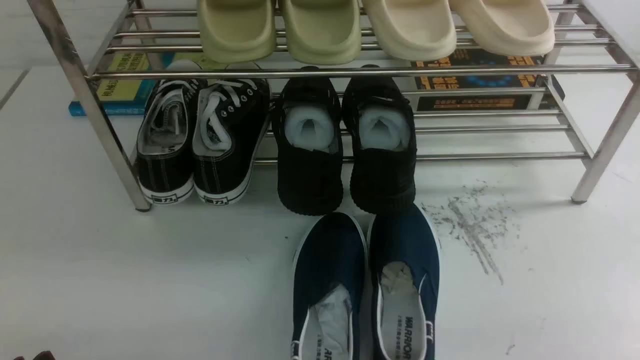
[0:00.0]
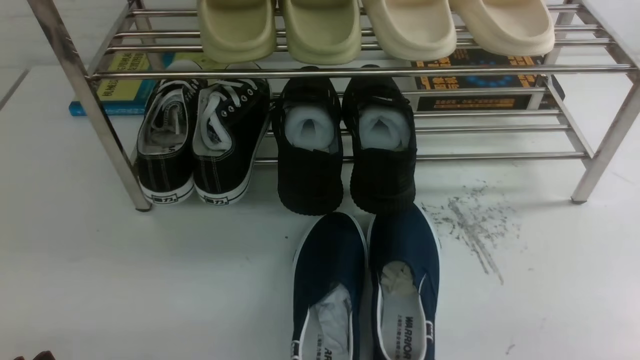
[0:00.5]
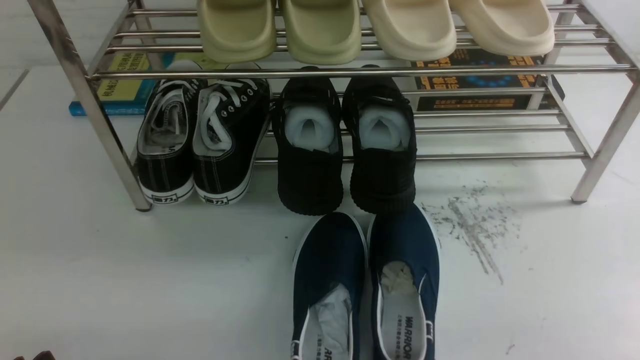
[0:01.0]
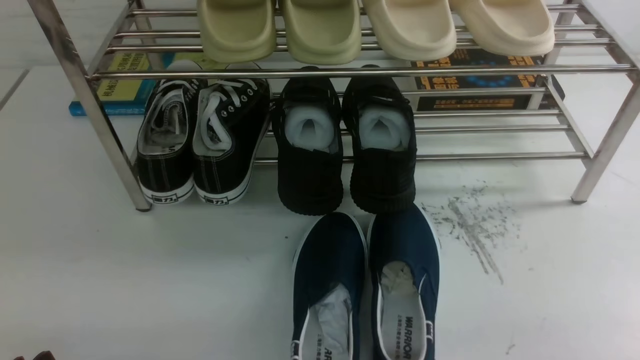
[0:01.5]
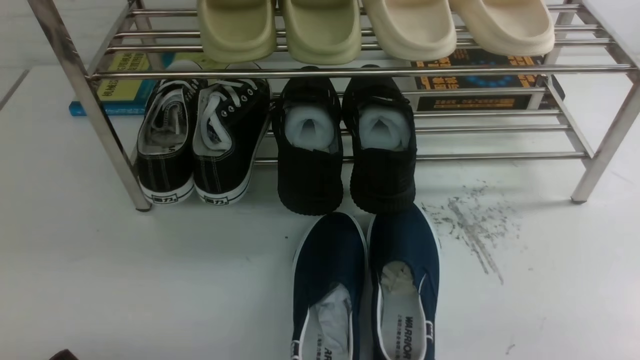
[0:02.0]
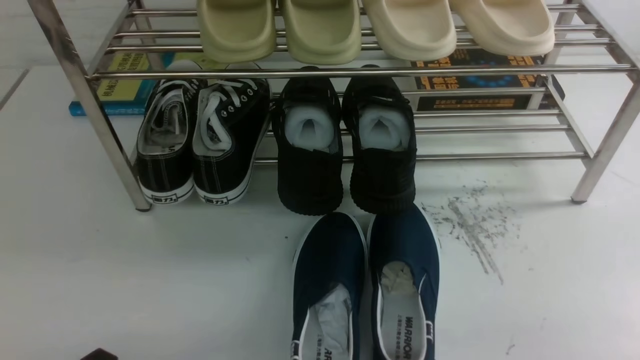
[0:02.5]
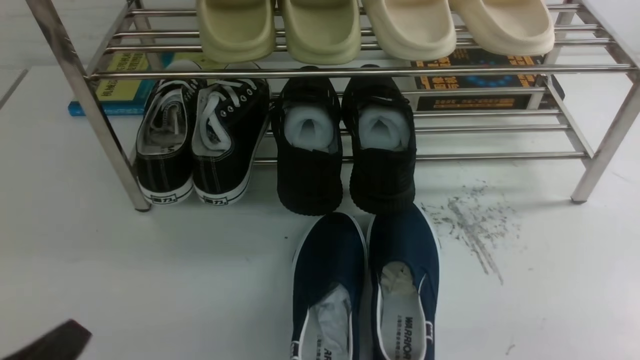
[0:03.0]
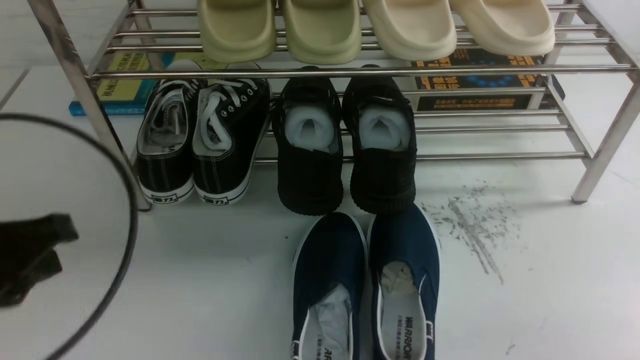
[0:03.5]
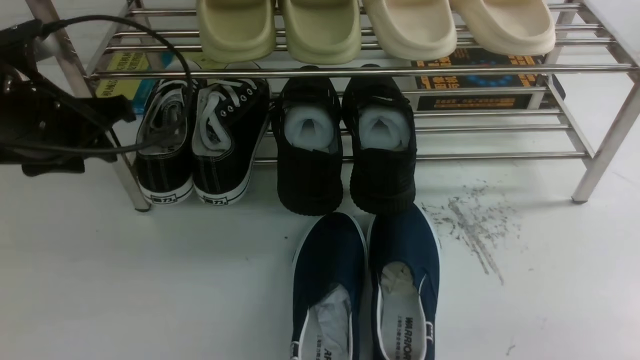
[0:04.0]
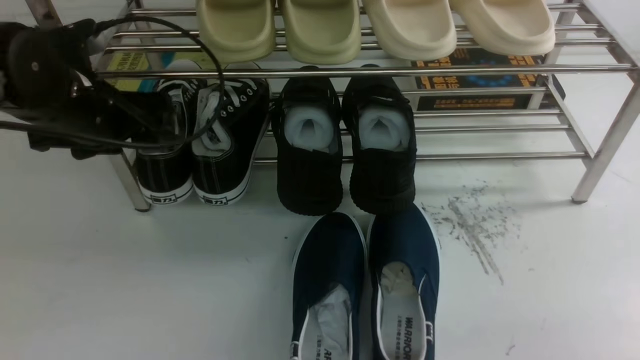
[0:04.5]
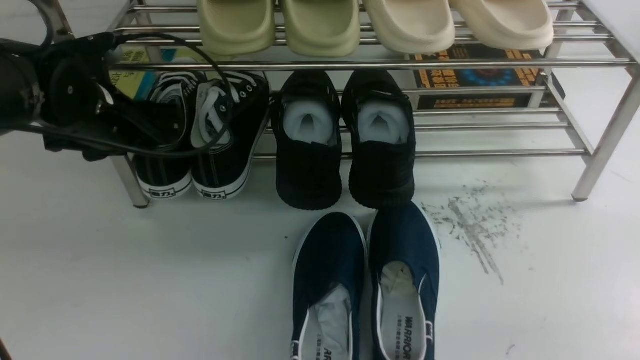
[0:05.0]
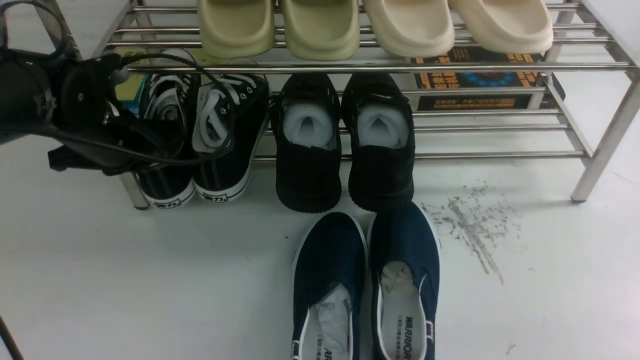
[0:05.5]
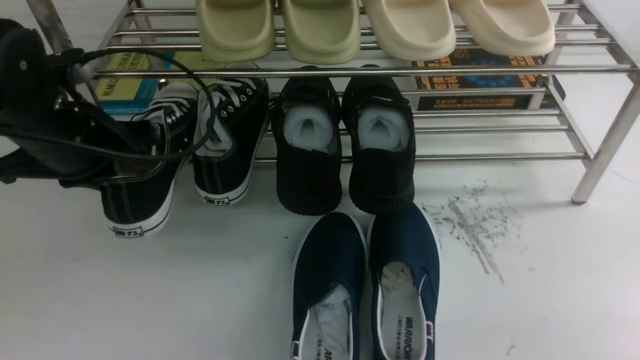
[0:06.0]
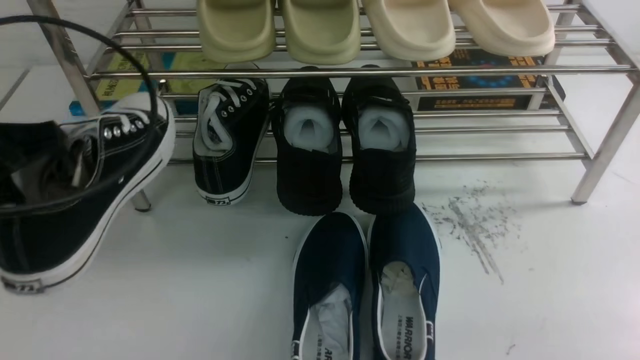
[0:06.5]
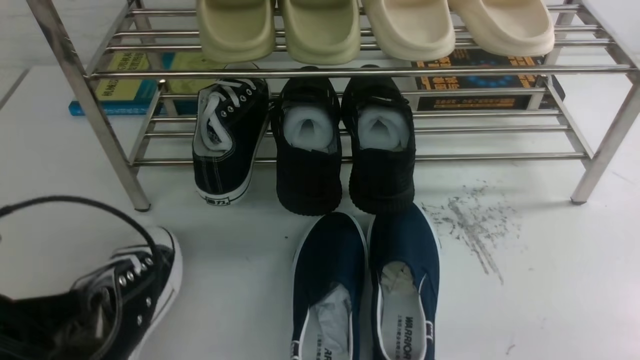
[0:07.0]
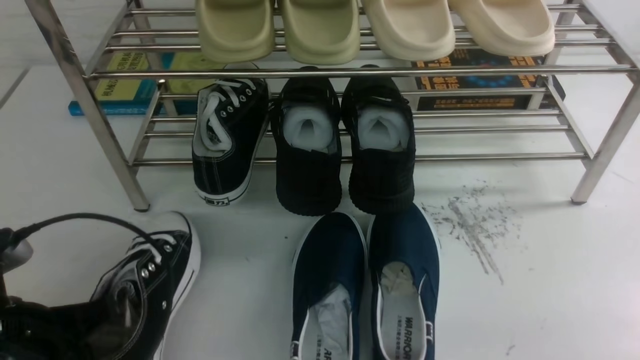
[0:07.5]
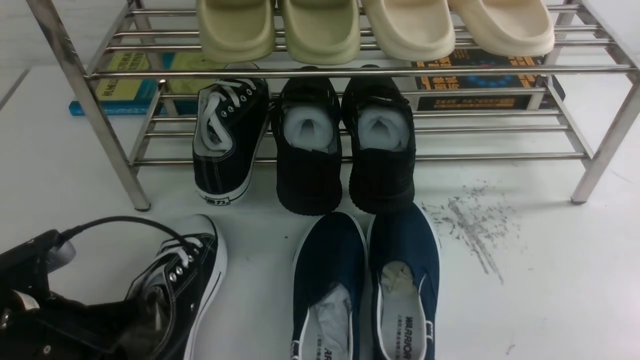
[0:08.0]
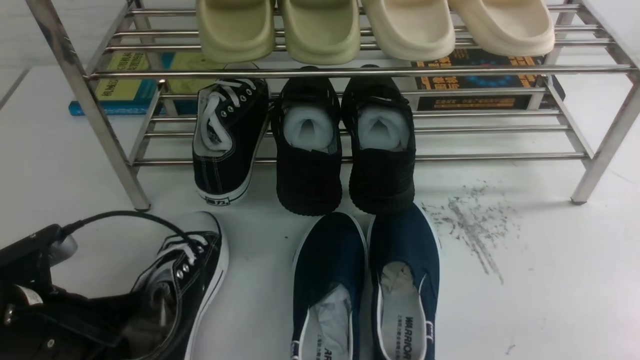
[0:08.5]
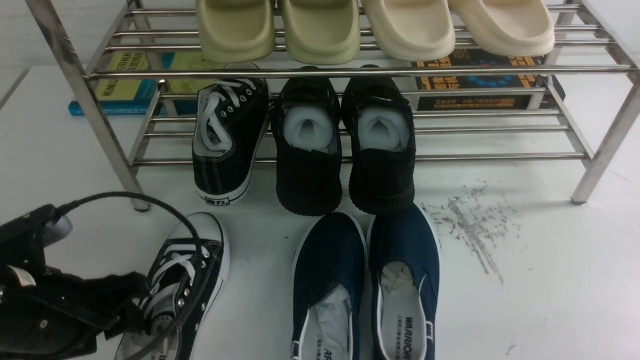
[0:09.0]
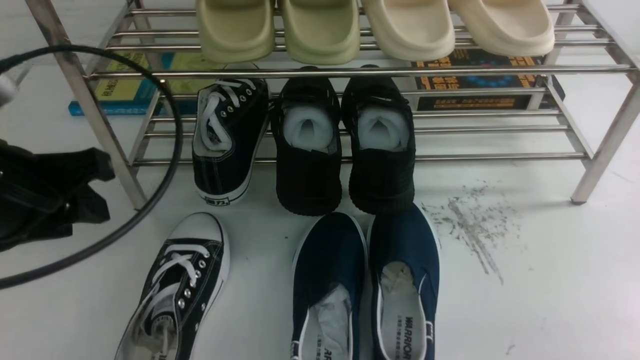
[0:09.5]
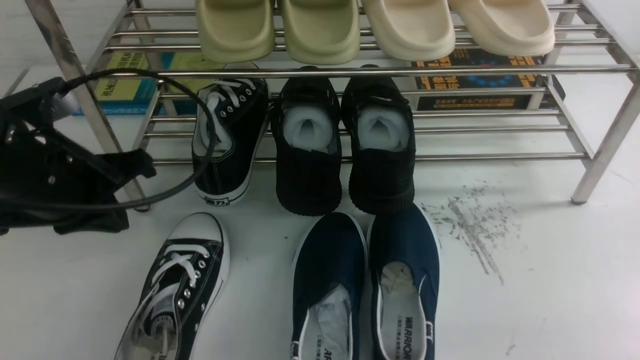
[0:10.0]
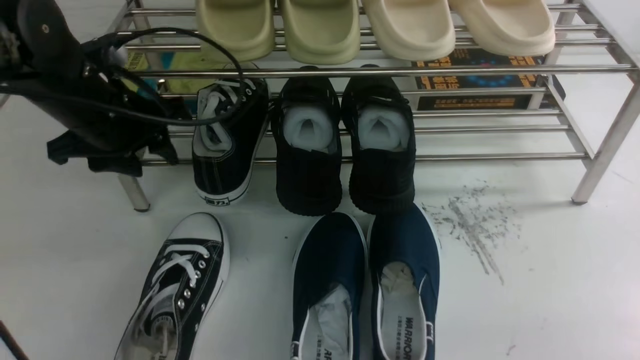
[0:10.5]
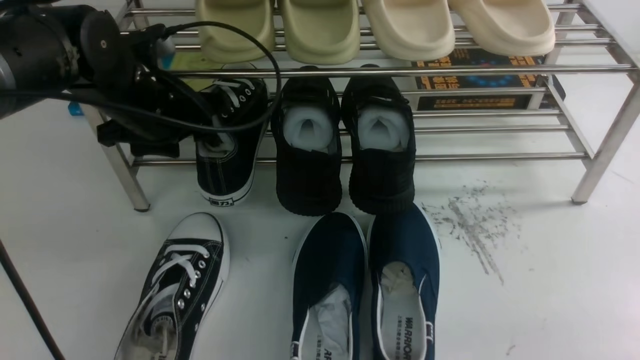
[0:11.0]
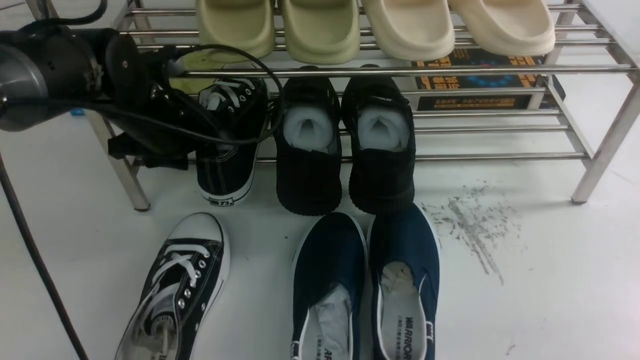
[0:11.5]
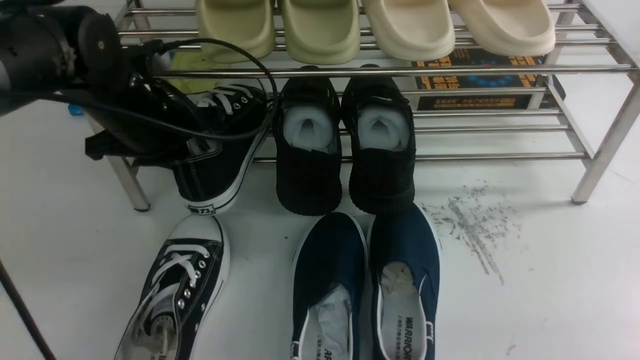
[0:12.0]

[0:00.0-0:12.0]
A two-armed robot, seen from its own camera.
Step, 0:00.0 to 0:05.5: use the left arm to clamp a shoe on the left side of the shoe rack.
Step, 0:06.0 to 0:09.0: Use your left arm to remove the clamped shoe from the shoe rack and put it down.
0:02.0 to 0:04.0: The left gripper goes approximately 30 cm forward and upward, and closes and opens again.
0:04.0 to 0:06.0: The left gripper closes.
0:06.0 to 0:08.0: The left gripper goes approximately 15 cm backward and downward.
0:08.0 to 0:10.0: The left gripper heads forward and upward, covering about 15 cm, and opens, then closes again.
0:10.0 to 0:12.0: The left gripper goes about 10 cm forward, and opens and closes again.

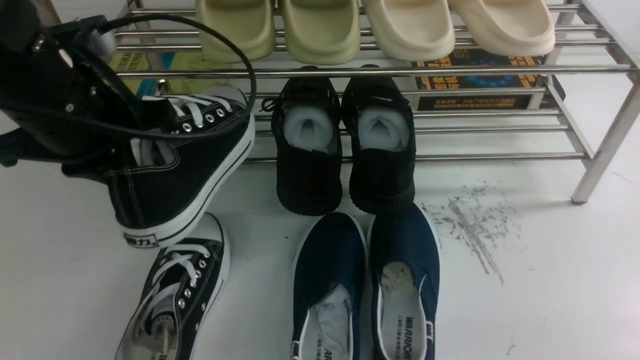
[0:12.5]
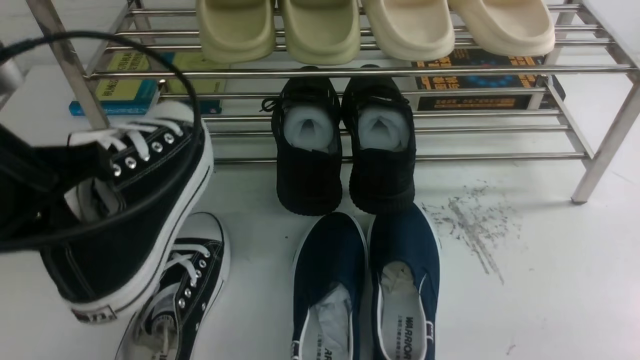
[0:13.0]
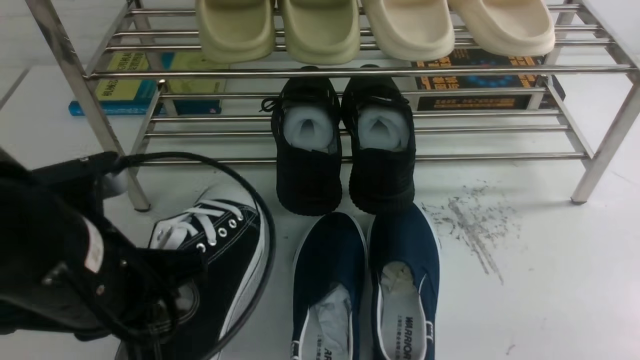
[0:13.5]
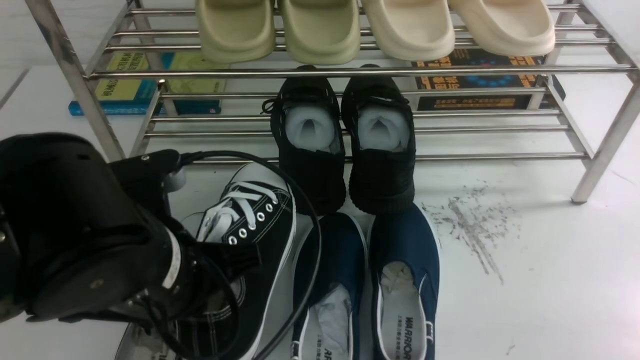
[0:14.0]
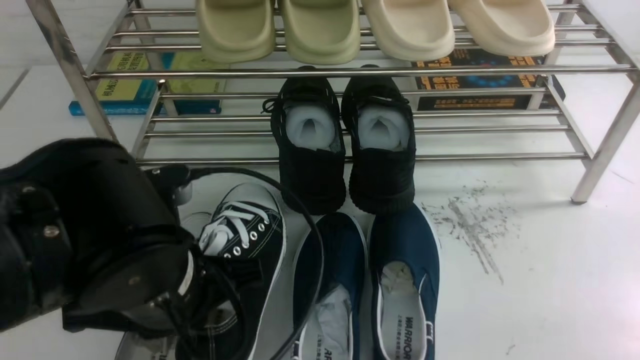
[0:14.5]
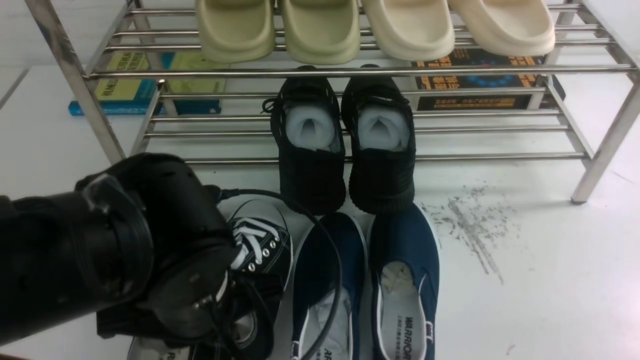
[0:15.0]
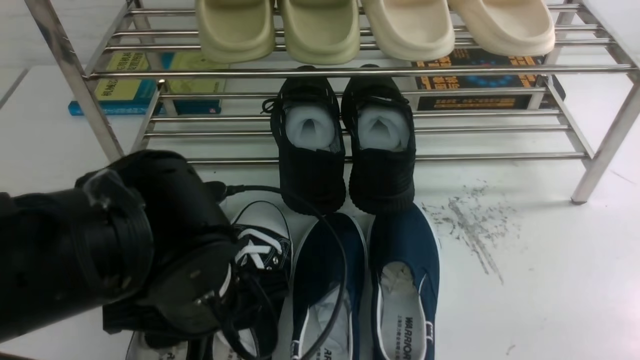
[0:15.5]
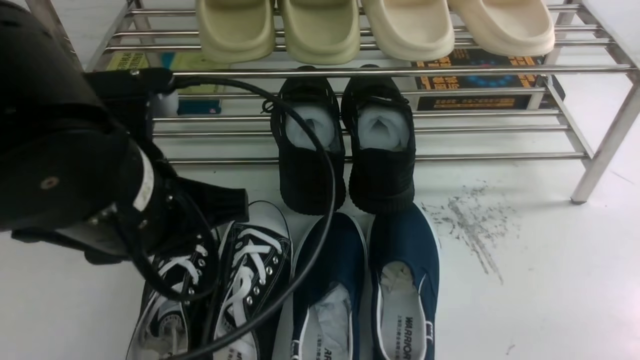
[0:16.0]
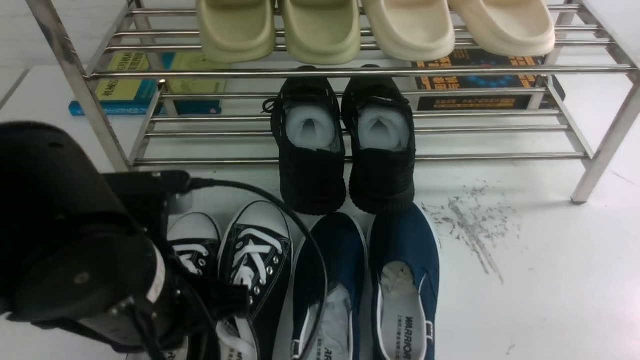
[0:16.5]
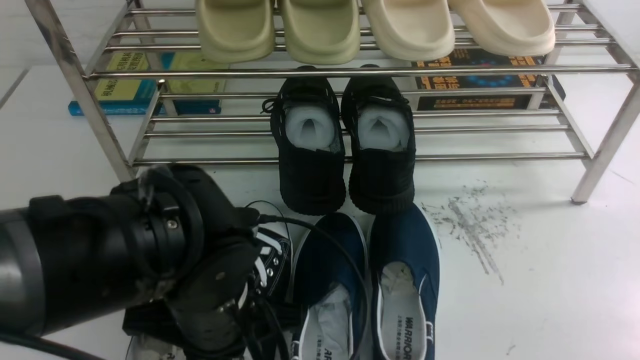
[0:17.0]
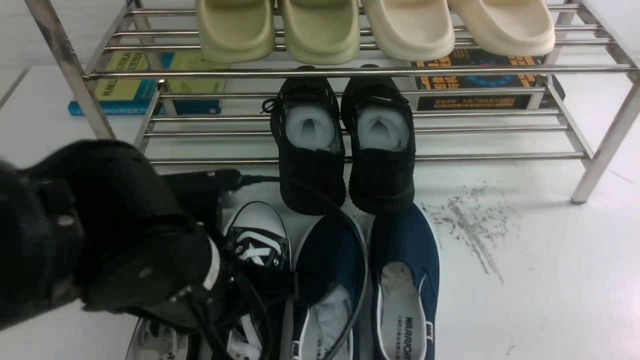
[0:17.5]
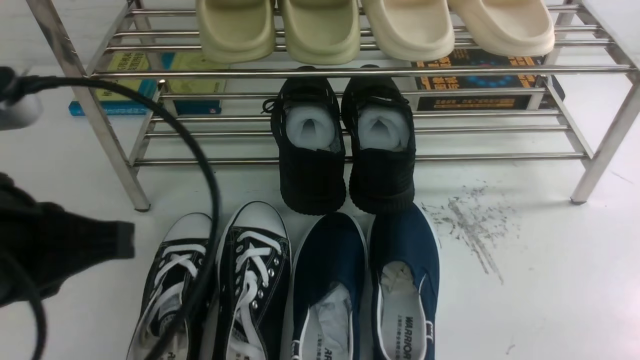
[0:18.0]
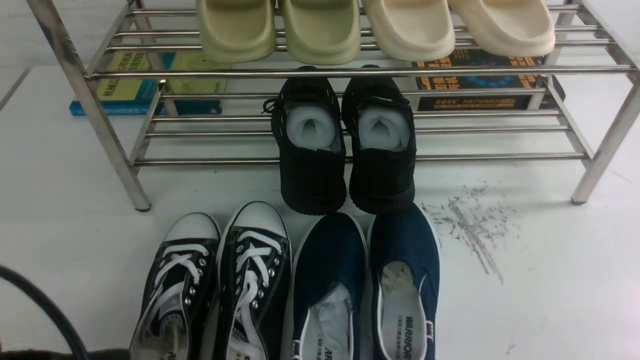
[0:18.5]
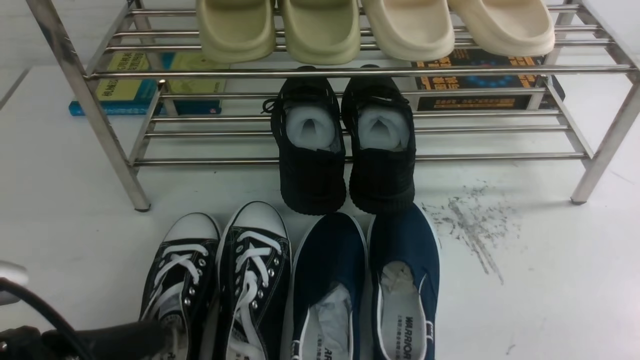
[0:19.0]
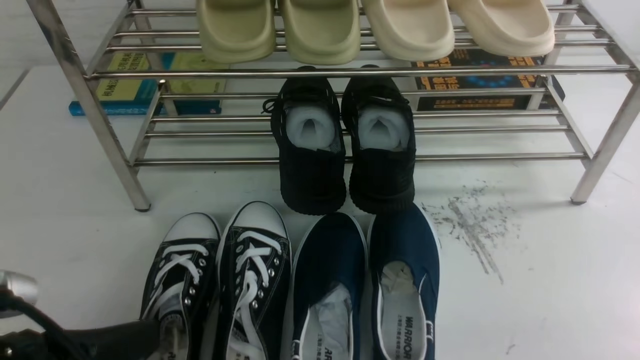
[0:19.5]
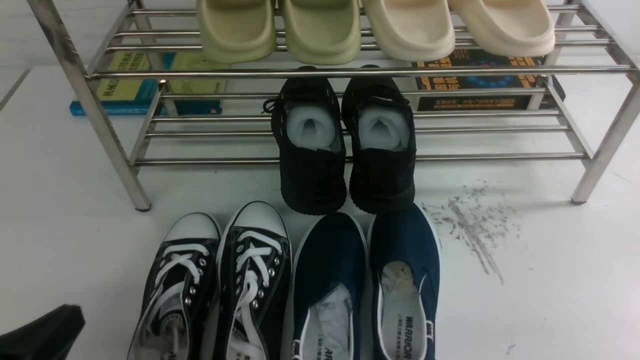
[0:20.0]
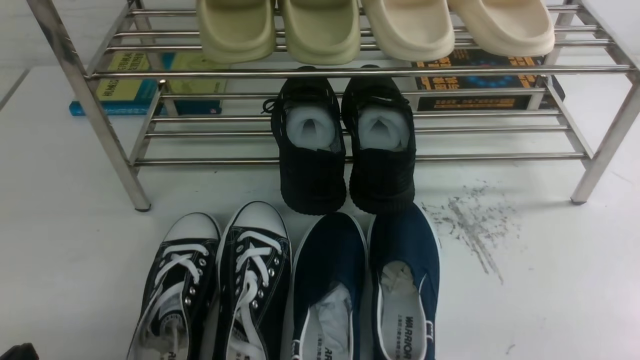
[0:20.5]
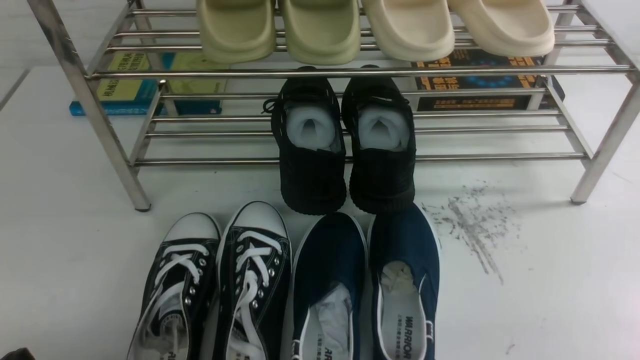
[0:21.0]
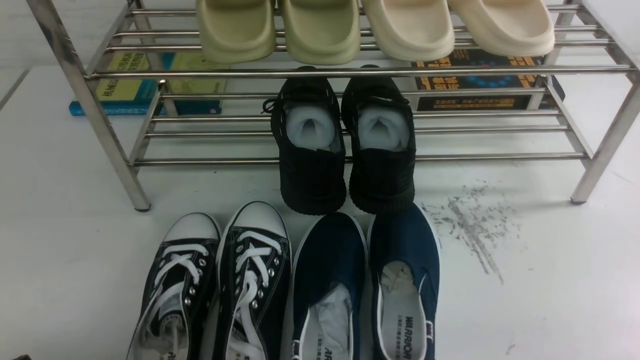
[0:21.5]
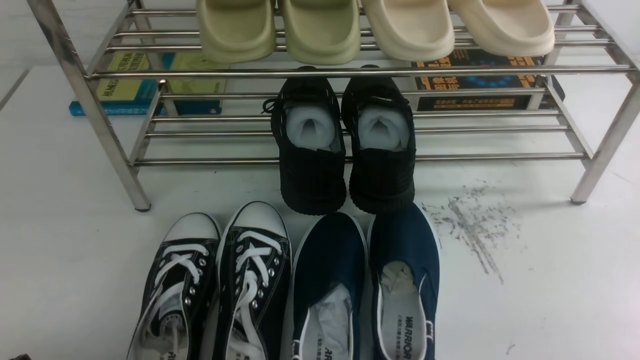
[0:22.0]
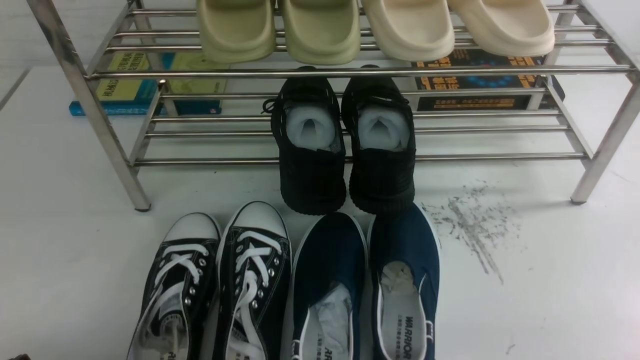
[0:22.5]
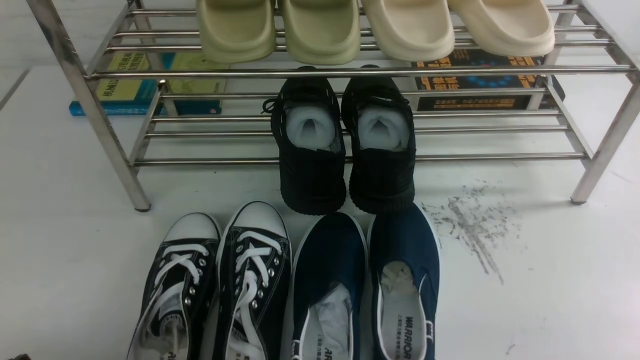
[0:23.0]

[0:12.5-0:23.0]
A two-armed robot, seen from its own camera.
Step, 0:12.5 to 0:15.5: Use your left arm to remove the clamped shoe from the shoe rack and put it down.
0:12.5 to 0:14.5: The left gripper shifts roughly 15 cm backward, to the right and downward.
0:14.5 to 0:16.5: The left gripper travels upward and back again, some 5 cm each way, and opens and closes again.
0:16.5 to 0:19.0: The left gripper moves up and down over some 15 cm, changing direction 2 times.
0:19.0 to 0:21.0: The left gripper moves downward and to the left, some 10 cm.
0:21.0 to 0:23.0: Both grippers stay about where they are.
